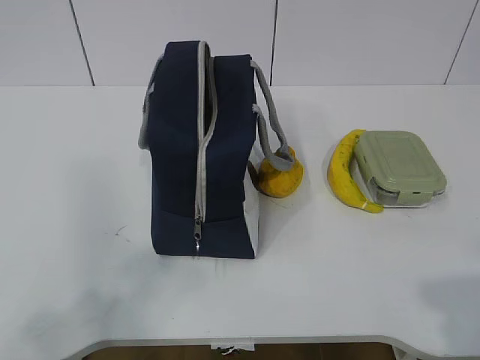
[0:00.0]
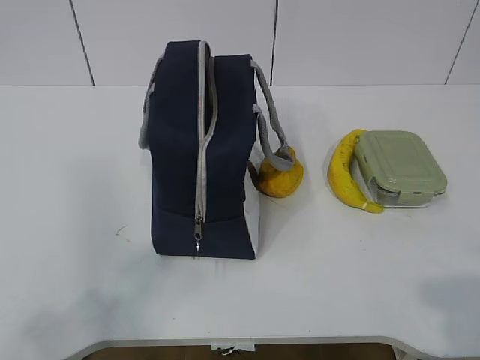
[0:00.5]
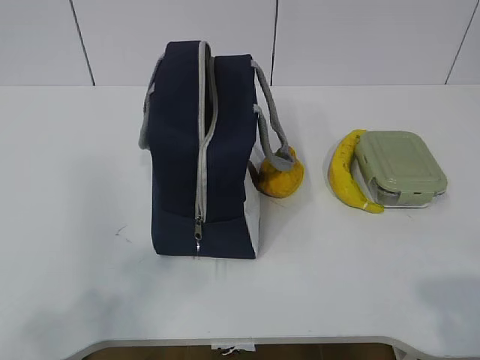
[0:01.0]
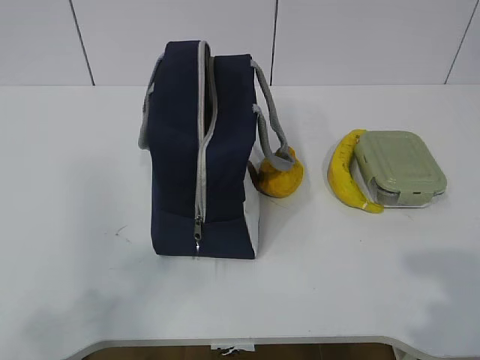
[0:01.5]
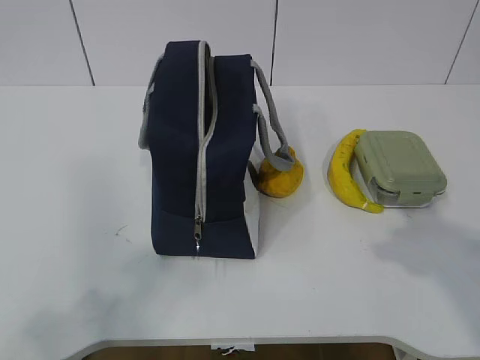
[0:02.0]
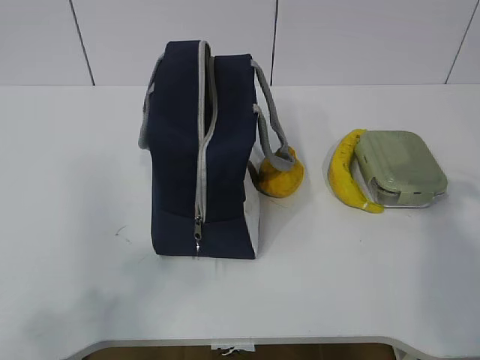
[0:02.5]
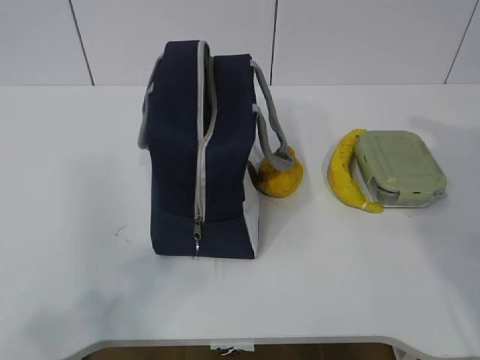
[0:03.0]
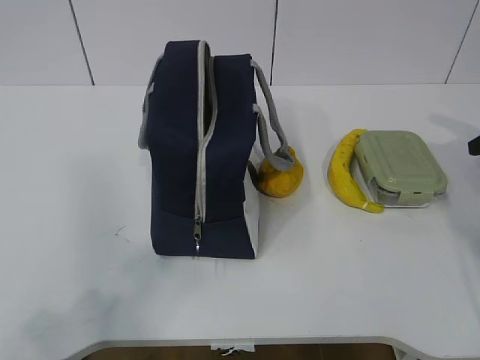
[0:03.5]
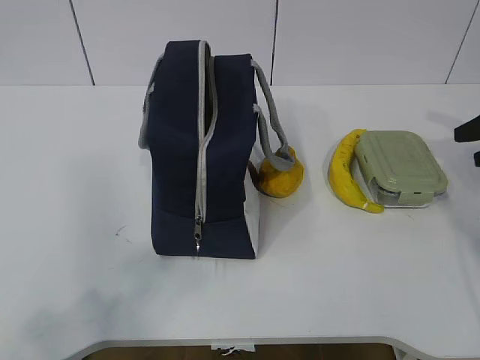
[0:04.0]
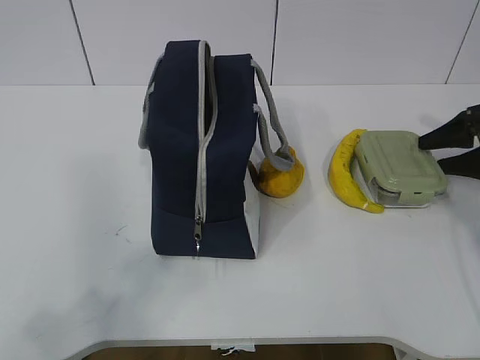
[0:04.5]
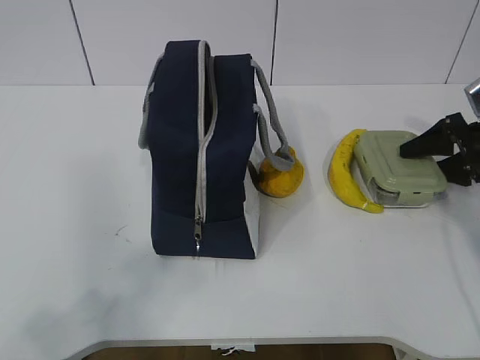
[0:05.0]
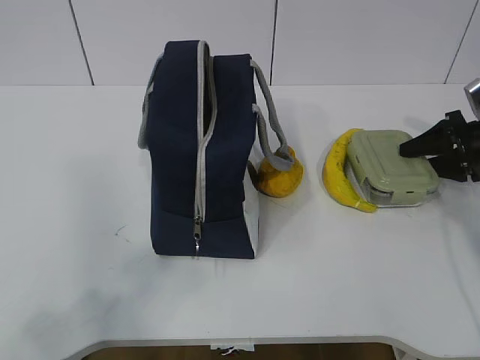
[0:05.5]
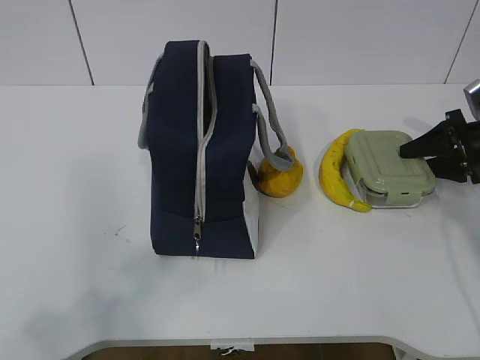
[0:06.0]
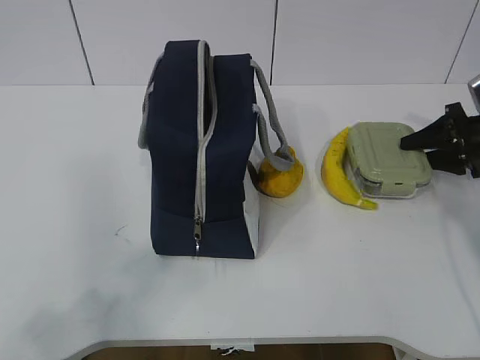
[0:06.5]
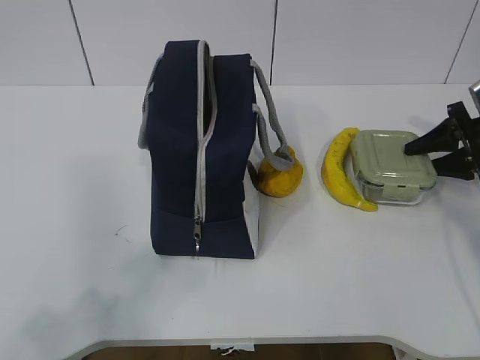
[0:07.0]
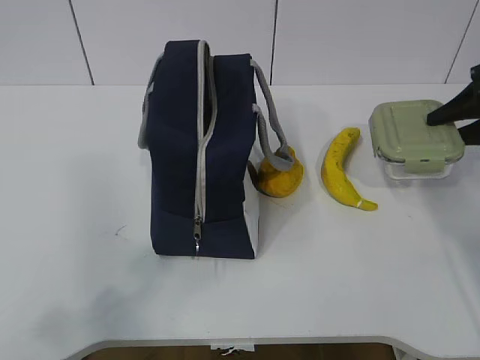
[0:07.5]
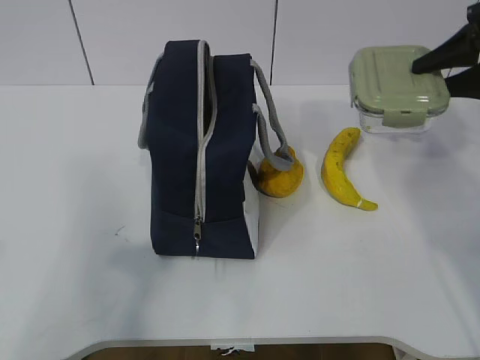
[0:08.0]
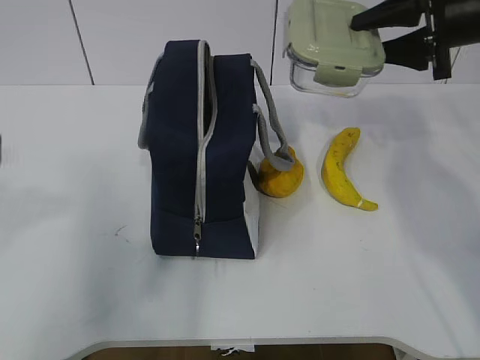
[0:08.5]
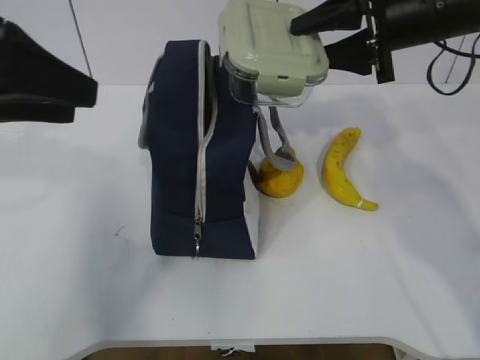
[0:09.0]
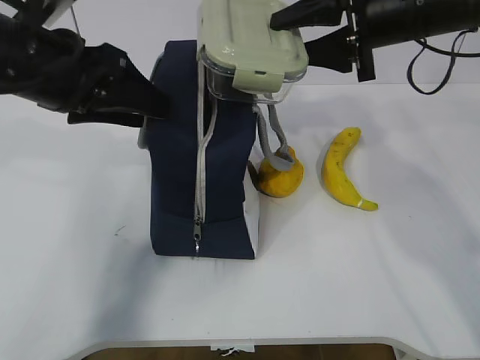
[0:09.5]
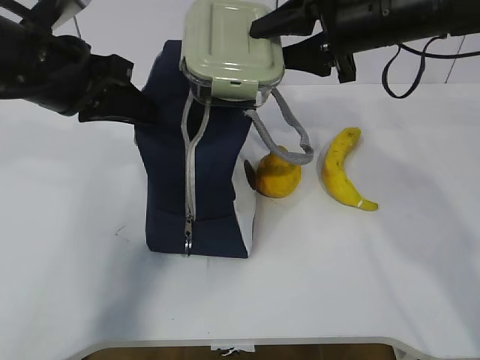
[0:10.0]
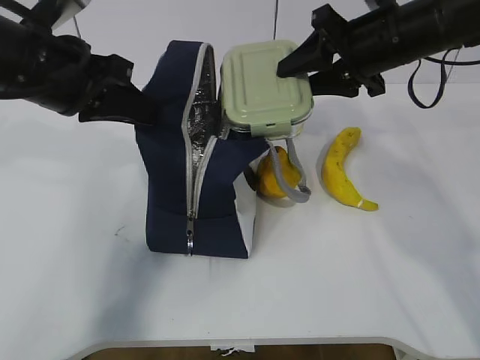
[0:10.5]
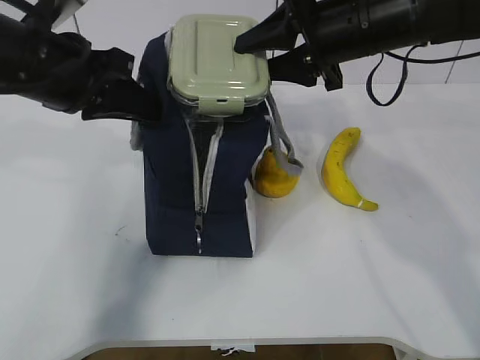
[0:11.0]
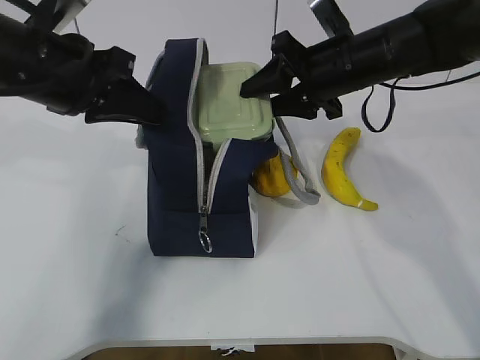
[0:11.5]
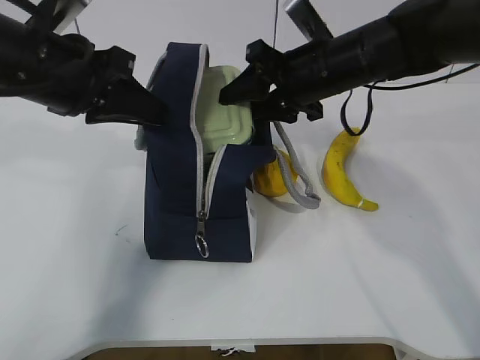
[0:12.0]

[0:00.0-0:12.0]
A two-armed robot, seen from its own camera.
Step, 0:00.0 to 0:05.5: Grab the lunch box with your right hand.
Step, 0:06.0 to 0:08.0: Grab the lunch bag with your left hand.
Step, 0:08.5 to 0:11.5: Place it into the bag with your right hand.
0:02.0 to 0:04.0: The right gripper goes some 30 cm forward, to the right and downward.
0:04.0 to 0:06.0: The right gripper heads downward, covering some 5 cm.
0:06.0 to 0:08.0: The right gripper shifts some 15 cm upward.
0:08.0 to 0:10.0: The right gripper moves to the left, approximately 20 cm. Meanwhile the left gripper heads forward and to the right, covering about 30 cm, and closes up.
0:10.0 to 0:12.0: The right gripper heads downward, covering about 5 cm.

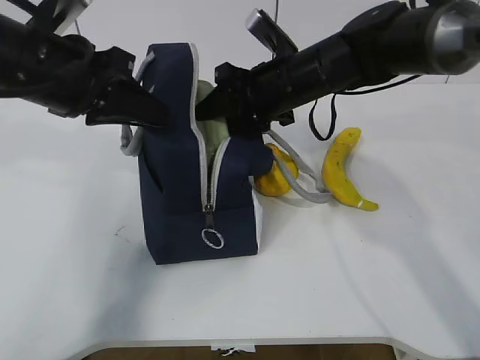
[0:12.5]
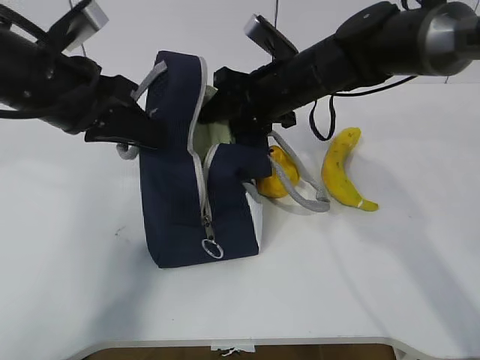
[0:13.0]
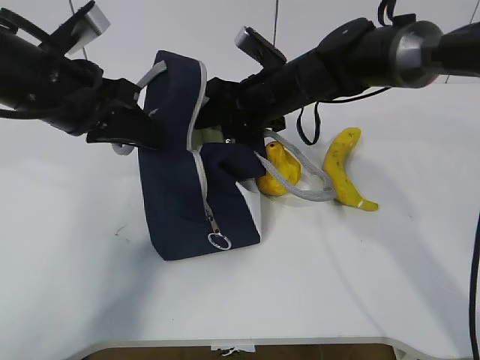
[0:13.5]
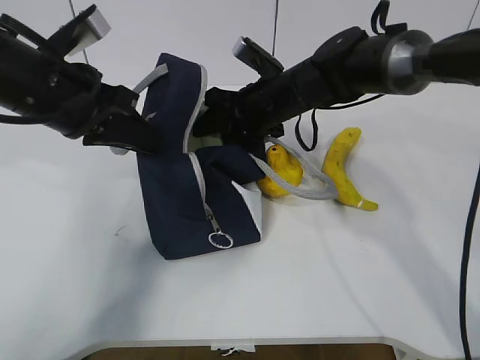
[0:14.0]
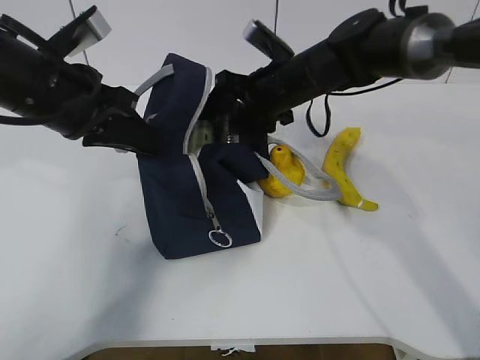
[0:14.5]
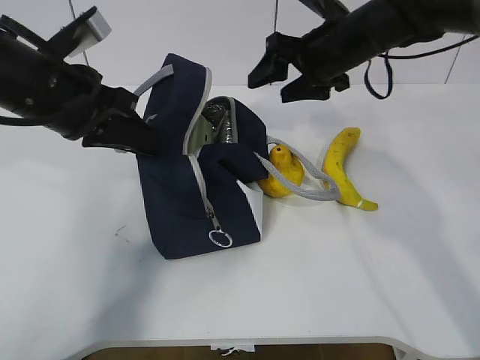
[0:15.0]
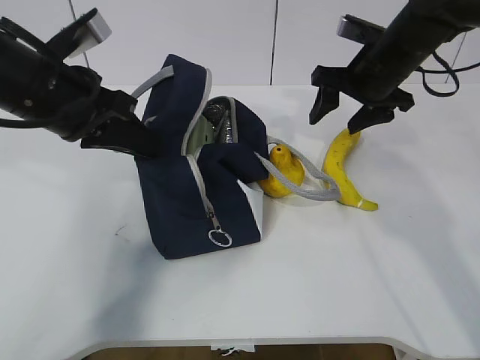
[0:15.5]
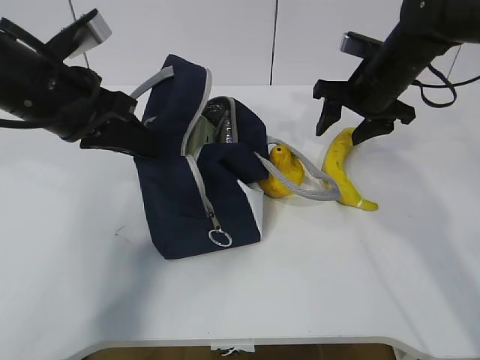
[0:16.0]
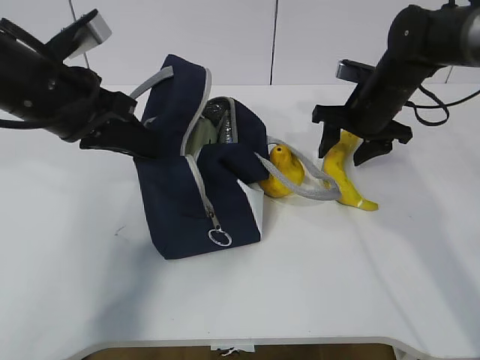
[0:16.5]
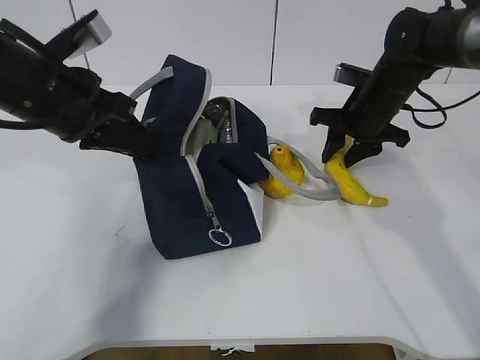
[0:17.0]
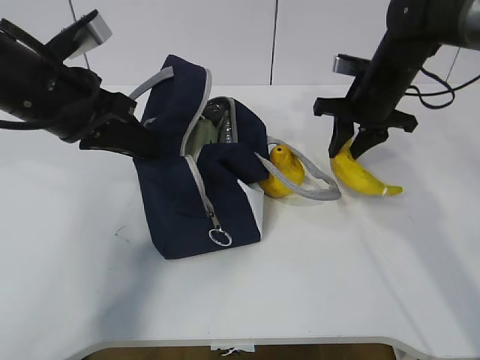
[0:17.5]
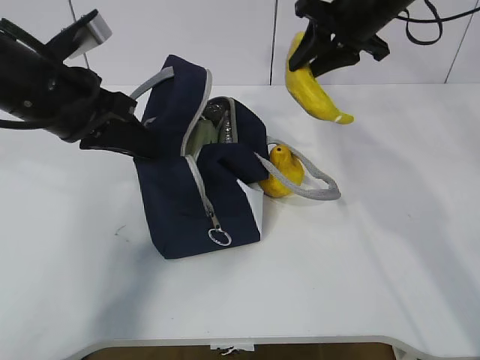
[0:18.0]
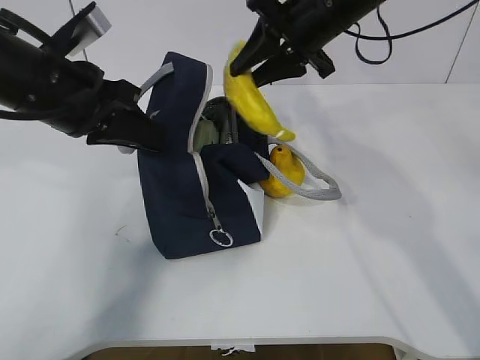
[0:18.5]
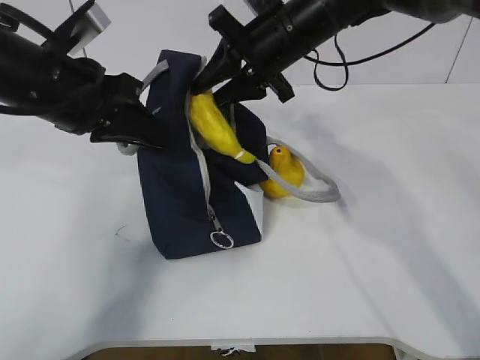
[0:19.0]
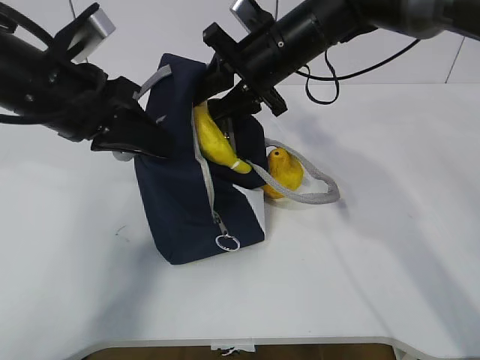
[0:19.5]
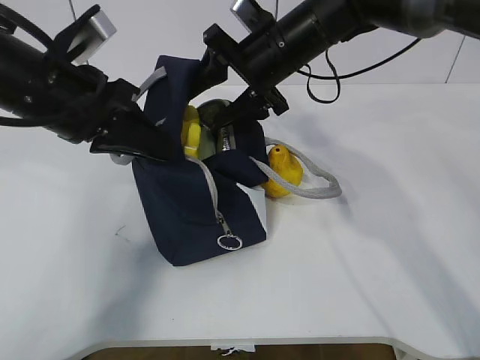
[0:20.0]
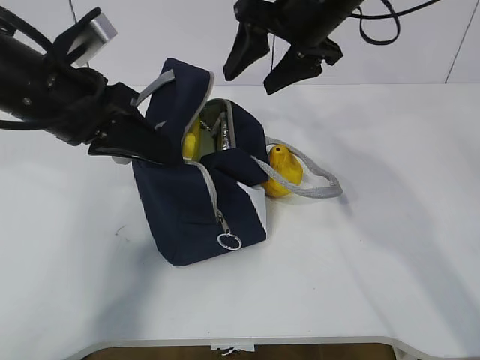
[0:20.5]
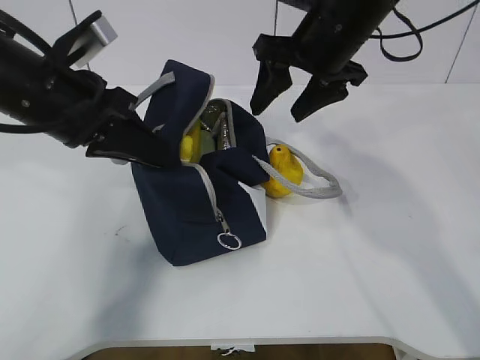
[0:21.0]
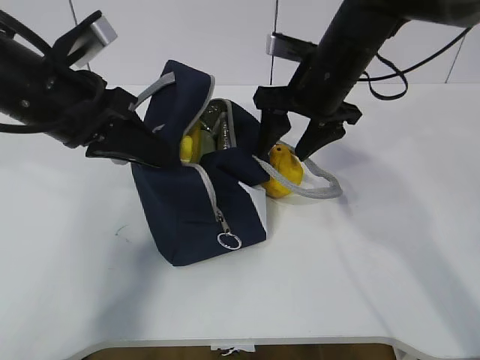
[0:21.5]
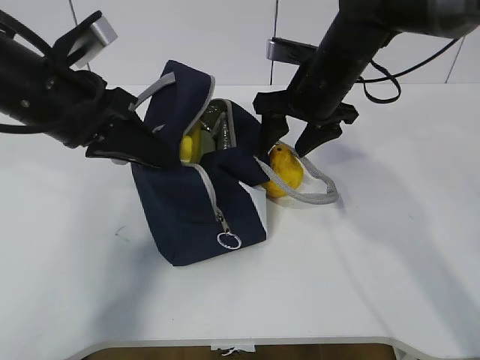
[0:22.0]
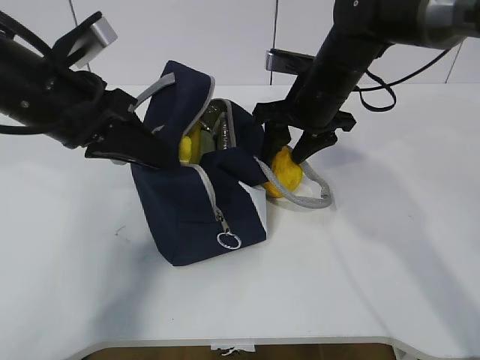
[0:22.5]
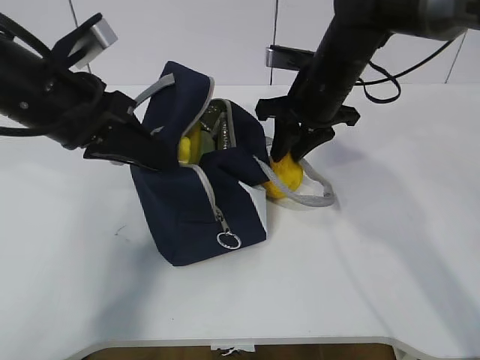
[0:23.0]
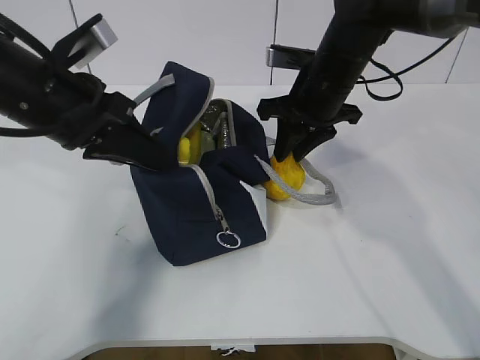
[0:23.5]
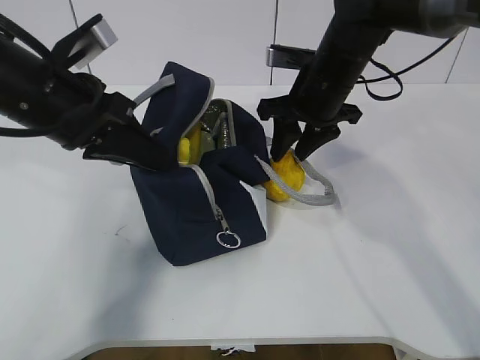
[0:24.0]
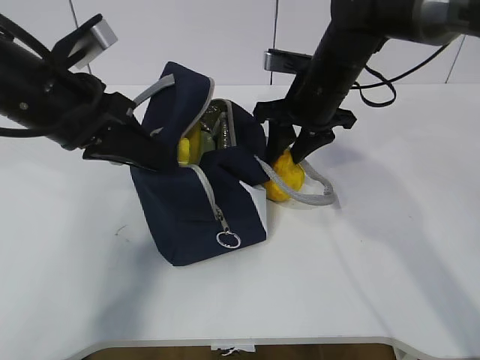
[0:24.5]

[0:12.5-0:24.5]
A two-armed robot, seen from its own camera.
Step, 0:12.5 to 0:14.0: Grab the banana with your right hand.
Step, 0:14.5 to 0:16.5: Place it into the bag with your right hand.
Step, 0:17.0 to 0:21.0: Grab the pear with your right hand.
0:12.5 to 0:14.5: The grippers make only small movements.
0:14.5 to 0:16.5: The right gripper travels to the right by about 10 cm.
0:16.5 to 0:18.5: The right gripper heads upward and to the left, covering some 15 cm, and closes its fingers.
0:18.5 to 0:20.5: The right gripper opens its fingers.
0:20.5 to 0:22.5: The right gripper moves downward, approximately 10 cm.
0:22.5 to 0:24.5: Both grippers stay about where they are.

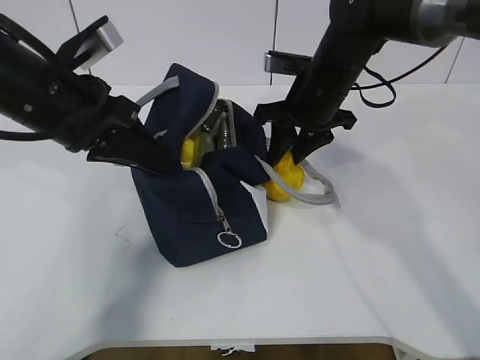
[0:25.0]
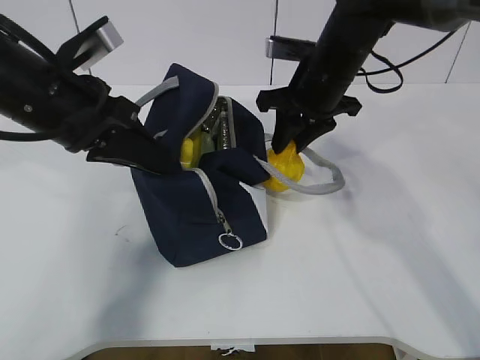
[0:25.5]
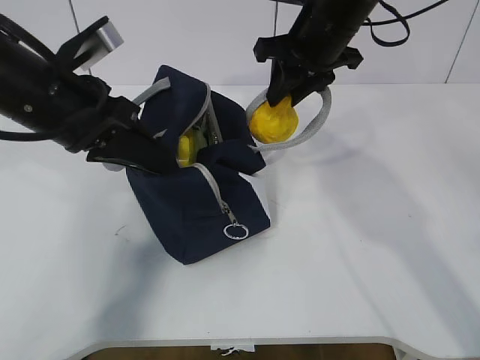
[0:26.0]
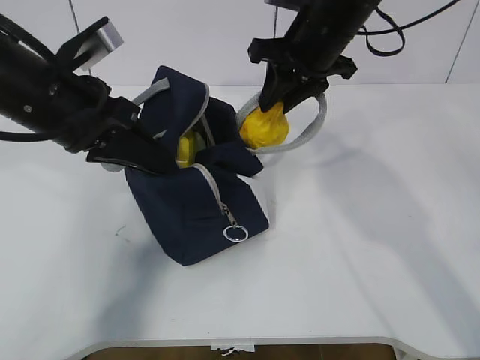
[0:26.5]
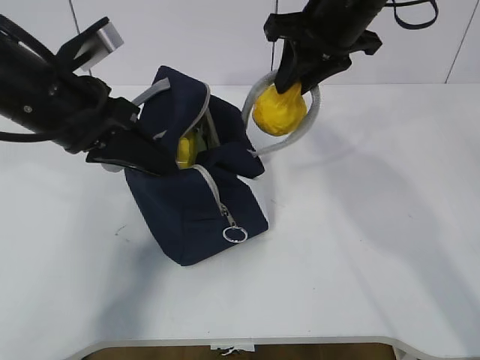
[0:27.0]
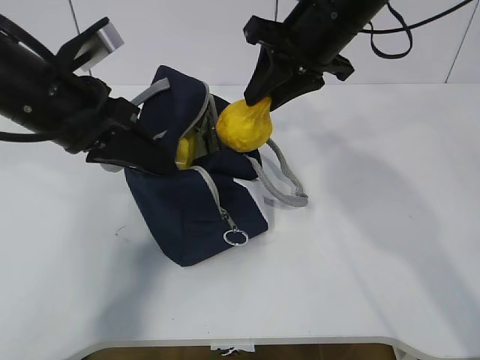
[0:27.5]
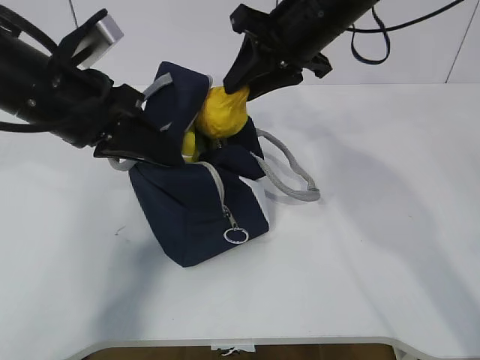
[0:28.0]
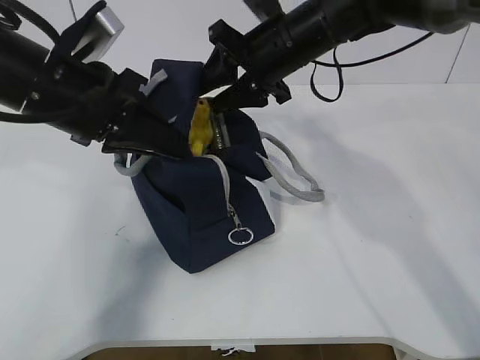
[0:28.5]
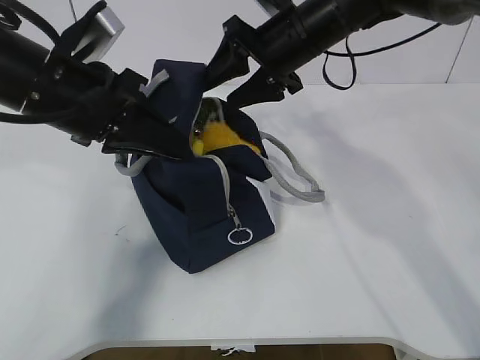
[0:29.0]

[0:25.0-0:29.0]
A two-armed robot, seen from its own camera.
Step, 0:25.0 to 0:26.0: Grab the lunch bag with your right hand.
Step, 0:26.5 to 0:28.0: Move the lunch bag to the right.
0:25.0 to 0:27.0: The right gripper heads upward, covering roughly 10 cm.
0:27.0 to 0:29.0: The right gripper changes place by about 5 cm, and opens up.
